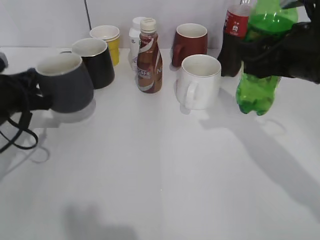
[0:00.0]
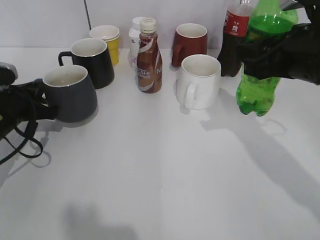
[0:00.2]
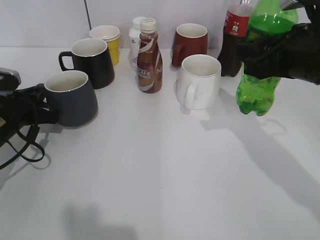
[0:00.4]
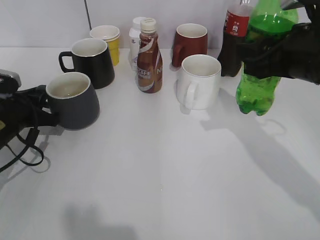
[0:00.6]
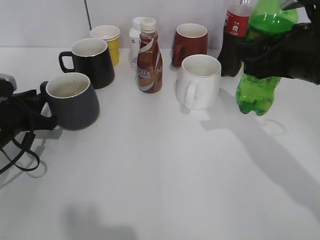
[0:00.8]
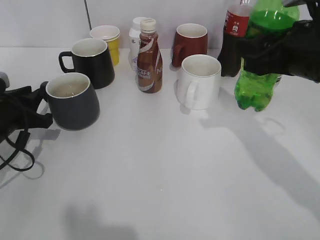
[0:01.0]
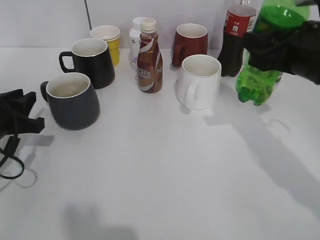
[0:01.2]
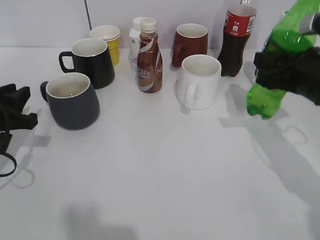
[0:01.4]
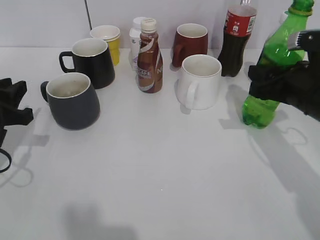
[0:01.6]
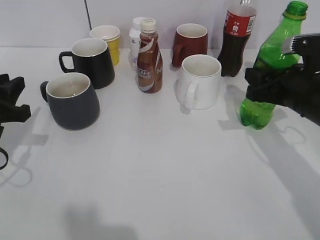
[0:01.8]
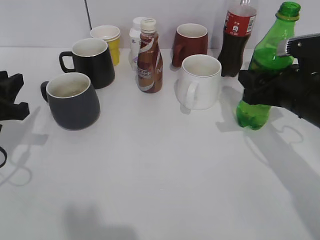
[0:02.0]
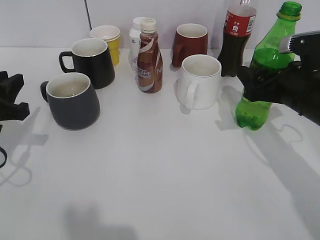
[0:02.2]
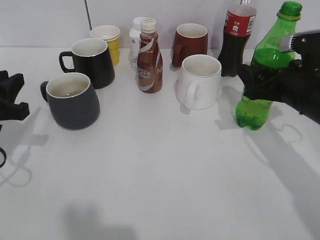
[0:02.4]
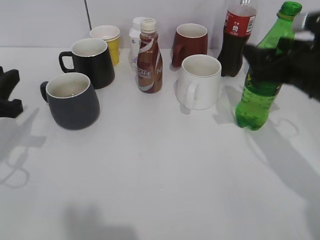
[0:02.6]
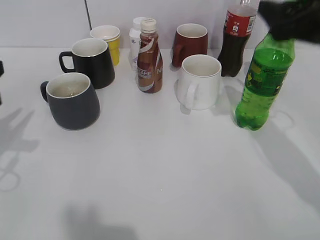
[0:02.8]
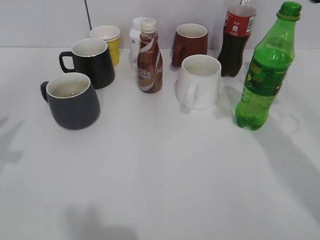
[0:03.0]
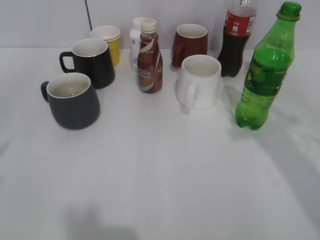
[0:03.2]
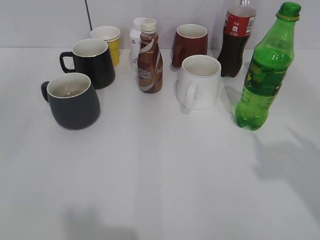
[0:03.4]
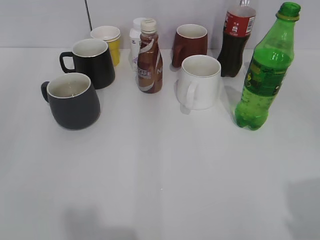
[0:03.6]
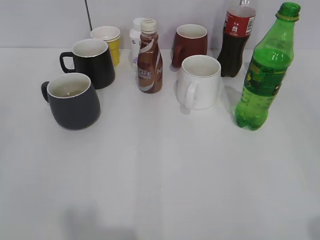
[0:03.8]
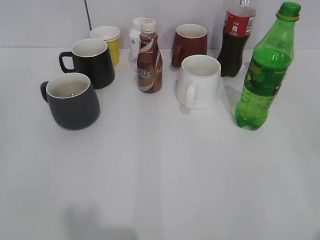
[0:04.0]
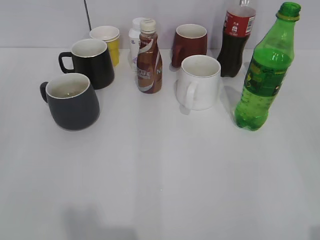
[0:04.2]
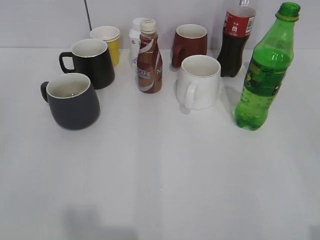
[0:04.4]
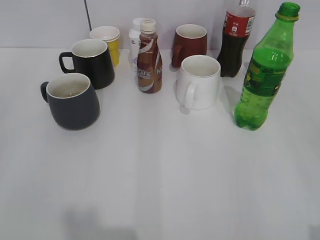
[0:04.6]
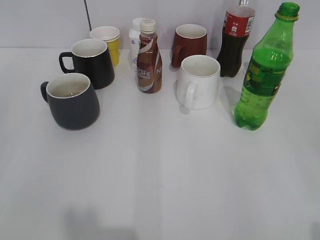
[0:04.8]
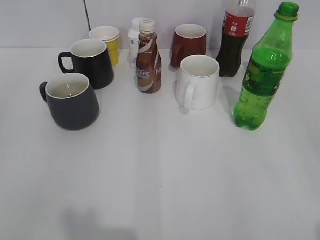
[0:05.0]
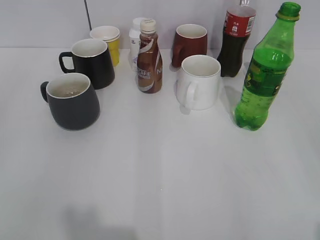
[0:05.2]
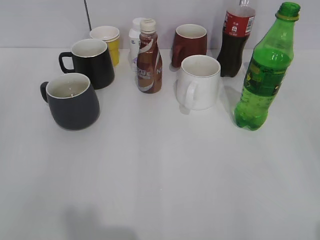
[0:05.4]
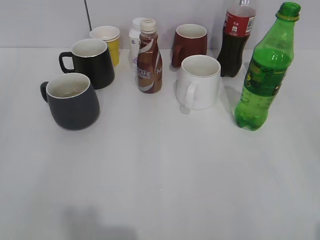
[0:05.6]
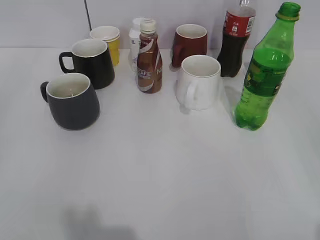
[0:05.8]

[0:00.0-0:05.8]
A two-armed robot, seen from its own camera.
Step, 0:01.0 to 0:02.4: Place the sprite bottle on the table with right gripper.
0:00.0 to 0:01.4: The right gripper changes place by some 5 cm, while the left gripper opens up.
0:01.4 to 0:02.8: The grippers both shift upward by roughly 5 cm. The right gripper opens.
0:02.8 to 0:04.4: The right gripper travels backward by approximately 25 cm.

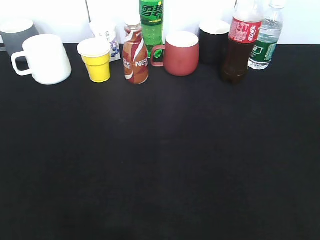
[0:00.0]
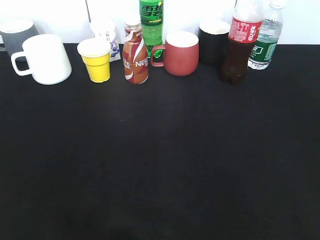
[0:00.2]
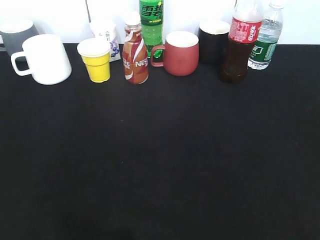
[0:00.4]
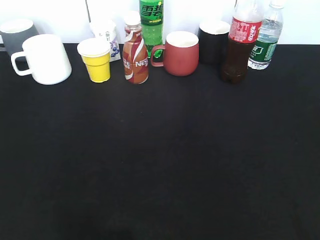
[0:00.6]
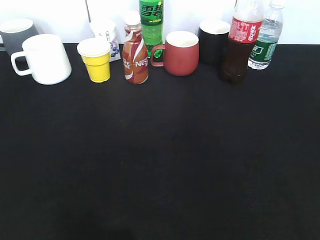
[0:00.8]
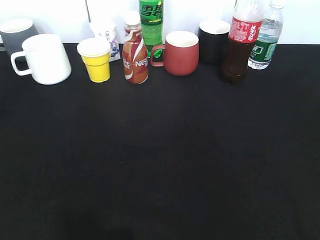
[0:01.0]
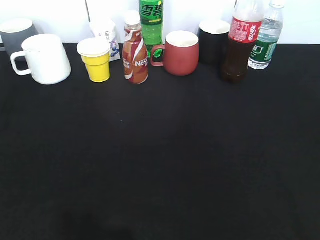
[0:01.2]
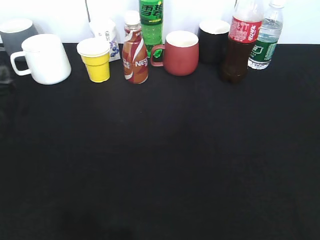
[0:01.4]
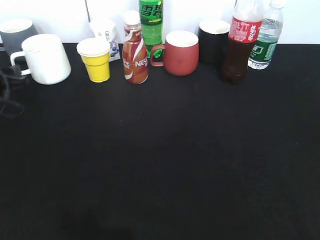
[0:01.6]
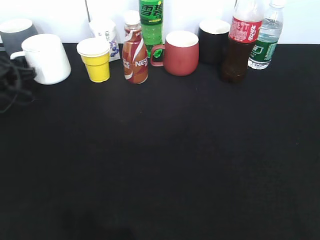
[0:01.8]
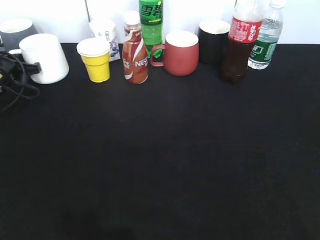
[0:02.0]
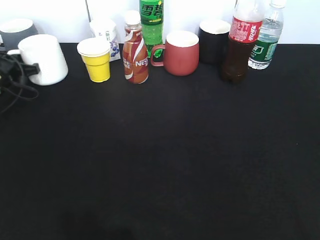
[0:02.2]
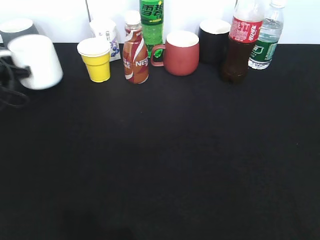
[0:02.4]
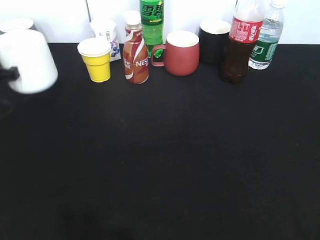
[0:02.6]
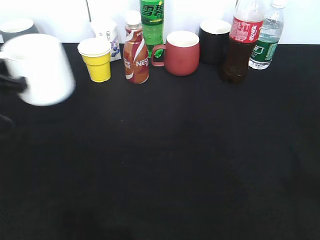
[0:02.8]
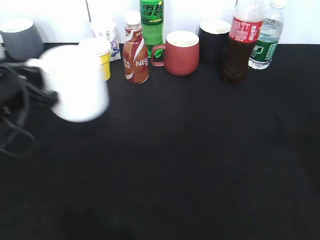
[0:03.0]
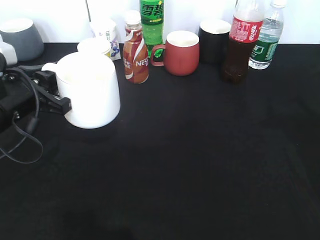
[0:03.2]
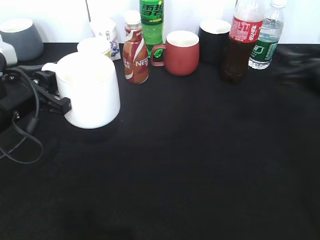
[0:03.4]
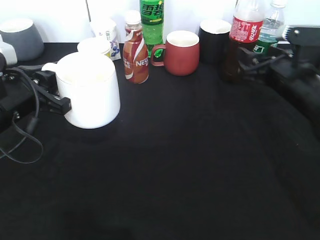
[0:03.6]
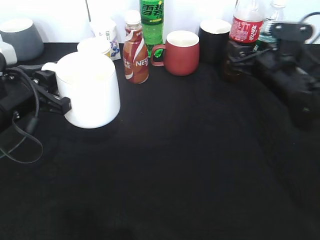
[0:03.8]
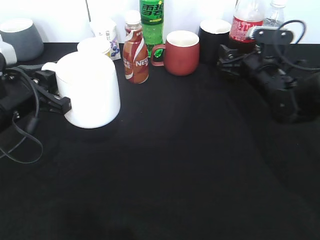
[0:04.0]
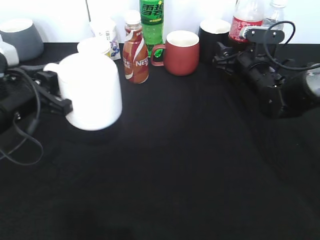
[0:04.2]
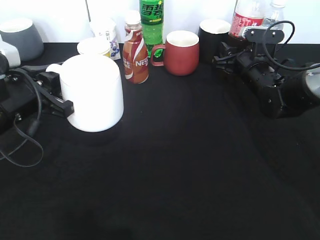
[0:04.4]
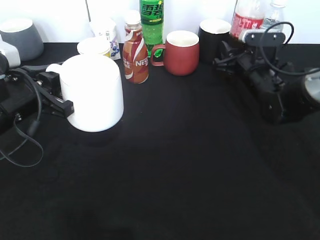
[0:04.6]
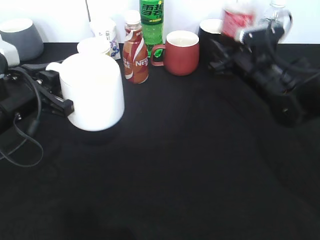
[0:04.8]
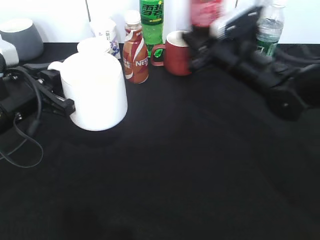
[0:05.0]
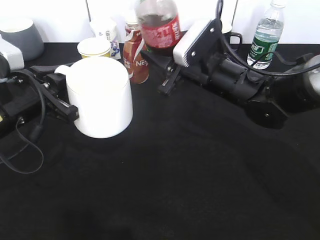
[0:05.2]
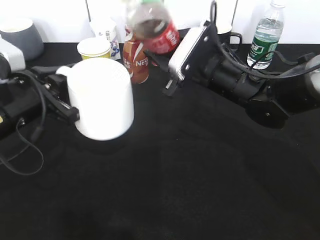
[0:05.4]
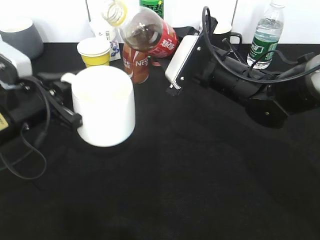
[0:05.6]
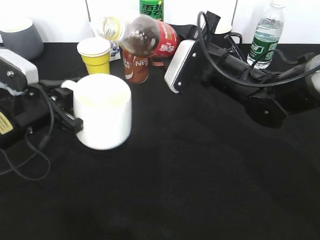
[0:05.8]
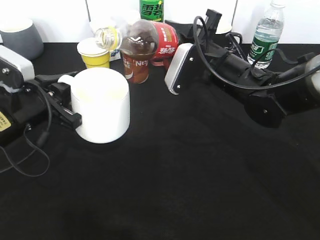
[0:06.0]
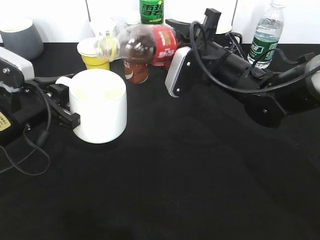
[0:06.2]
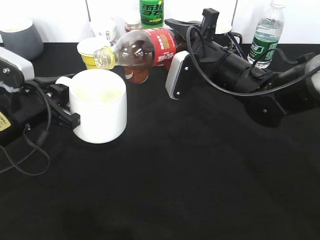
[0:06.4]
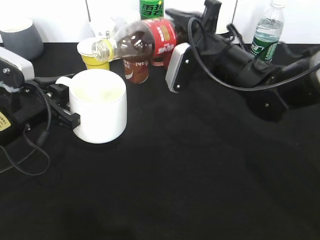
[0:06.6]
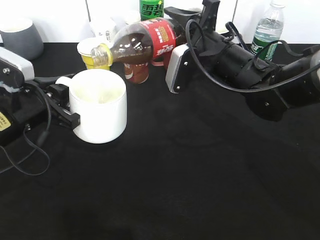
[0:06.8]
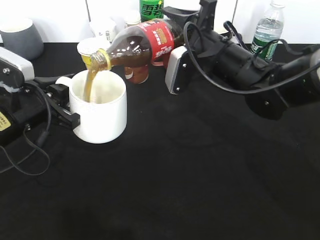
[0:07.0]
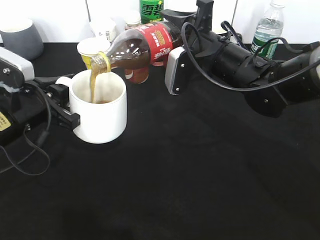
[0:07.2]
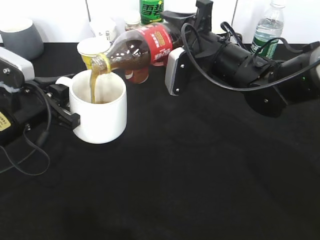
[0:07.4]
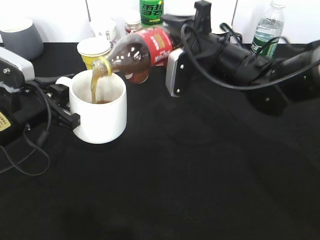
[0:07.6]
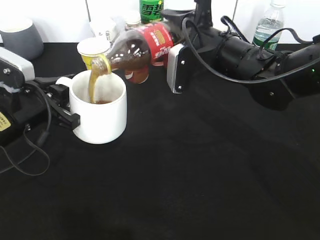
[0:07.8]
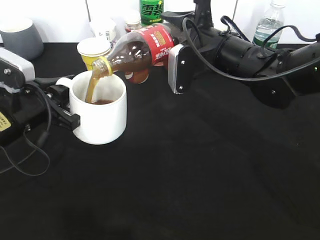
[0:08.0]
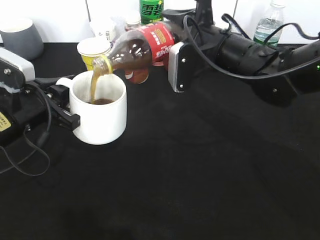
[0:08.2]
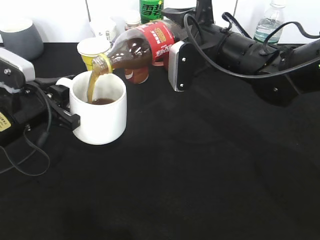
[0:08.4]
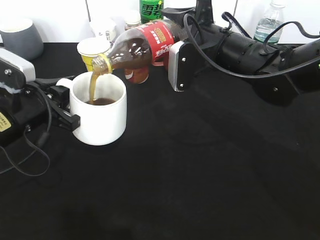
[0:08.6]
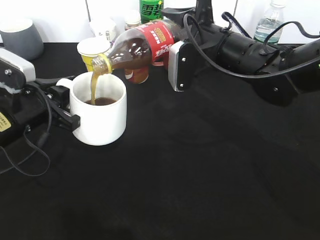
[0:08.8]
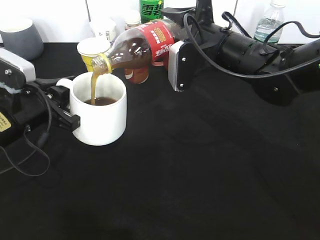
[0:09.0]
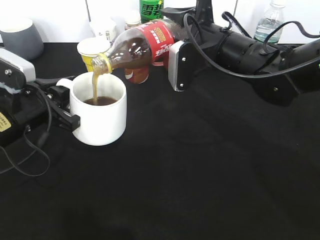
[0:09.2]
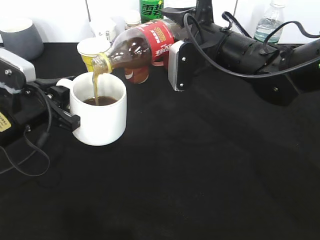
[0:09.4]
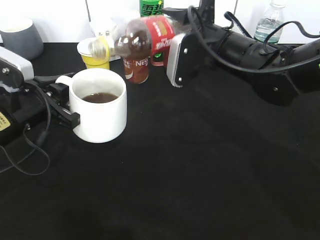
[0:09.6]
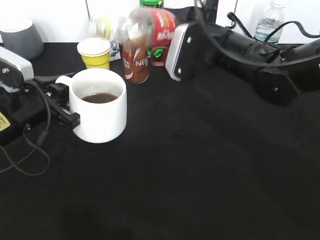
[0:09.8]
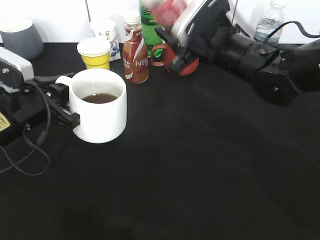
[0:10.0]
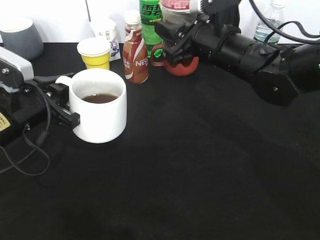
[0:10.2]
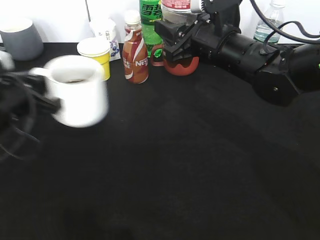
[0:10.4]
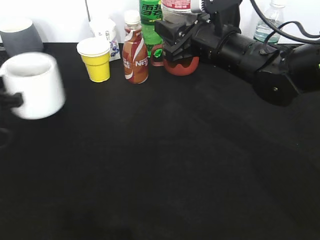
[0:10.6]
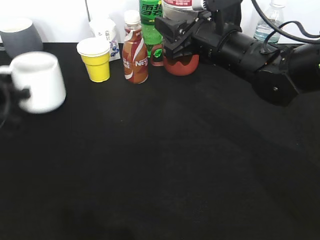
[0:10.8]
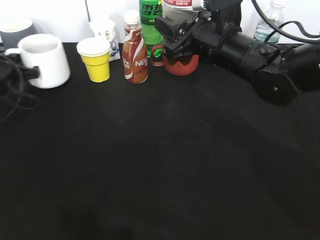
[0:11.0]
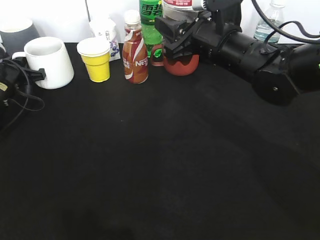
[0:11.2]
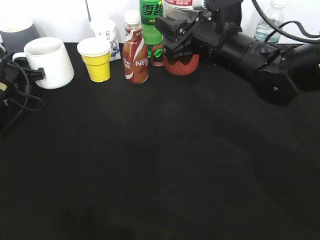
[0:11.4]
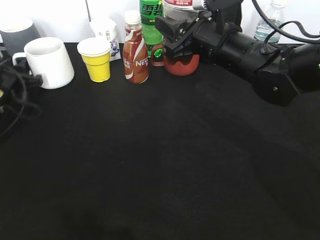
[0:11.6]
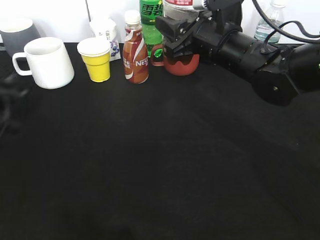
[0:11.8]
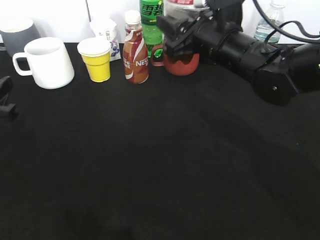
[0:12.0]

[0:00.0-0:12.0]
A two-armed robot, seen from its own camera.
Step, 0:00.0 to 0:02.0: Grasp the white cup with left gripper.
Step, 0:02.4 to 0:03.0: Lift the white cup with left gripper.
Step, 0:03.4 to 0:04.4: Grasp the bottle with cola with right gripper.
Step, 0:04.6 to 0:09.8: Pour the cola from bottle to cup with right gripper.
Step, 0:10.0 to 0:11.6: Place the white cup on the table with left gripper.
0:00.0 to 0:01.6: The left gripper moves forward and downward, approximately 40 cm.
0:01.6 to 0:03.0: The left gripper travels backward, to the right and upward by roughly 15 cm, and closes its fingers. Meanwhile the right gripper travels forward by some 20 cm.
0:03.0 to 0:04.4: The right gripper heads forward, downward and to the left, covering roughly 30 cm, and closes up.
0:04.4 to 0:06.0: The right gripper shifts some 15 cm to the left, backward and upward.
0:07.6 to 0:09.0: There are only small adjustments of the grippers.
0:10.4 to 0:12.0: The left gripper moves to the left, approximately 5 cm, moves roughly 15 cm forward and comes back, and opens its fingers.

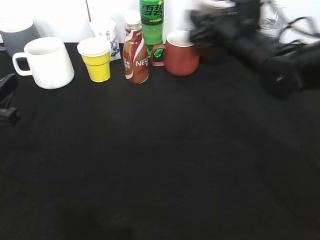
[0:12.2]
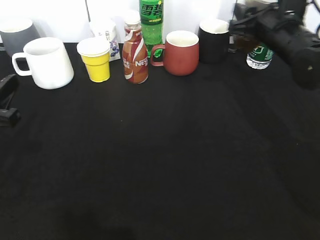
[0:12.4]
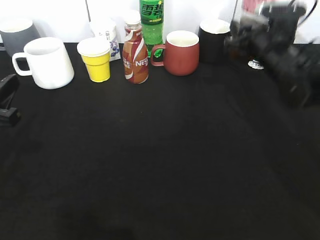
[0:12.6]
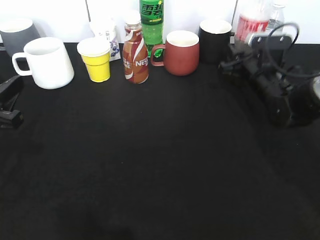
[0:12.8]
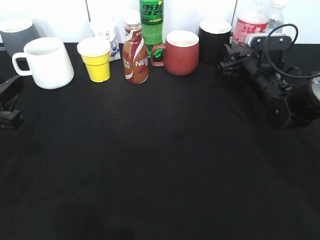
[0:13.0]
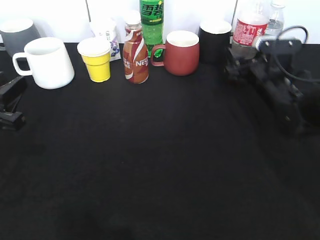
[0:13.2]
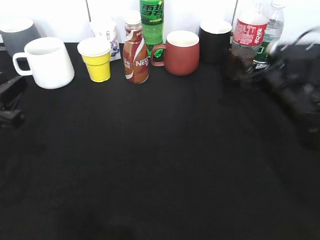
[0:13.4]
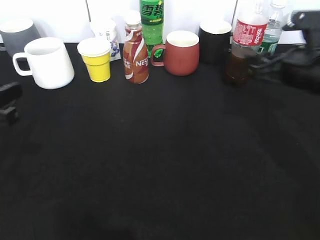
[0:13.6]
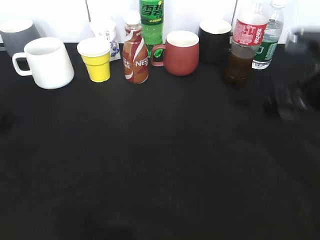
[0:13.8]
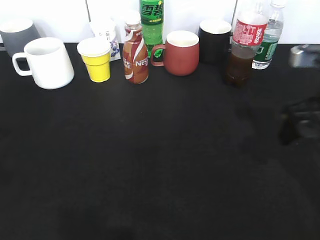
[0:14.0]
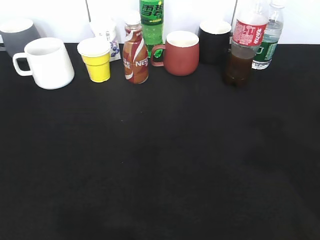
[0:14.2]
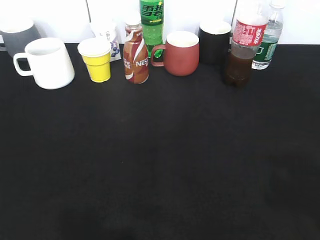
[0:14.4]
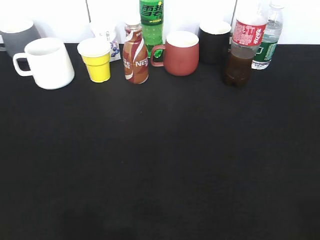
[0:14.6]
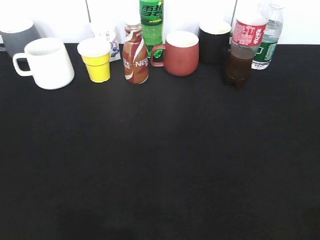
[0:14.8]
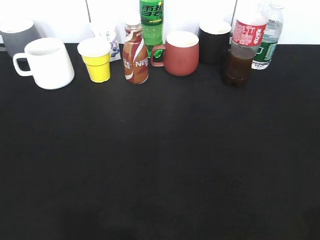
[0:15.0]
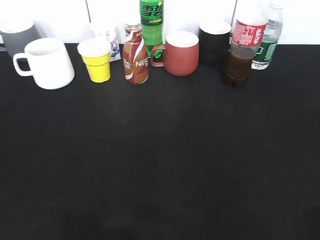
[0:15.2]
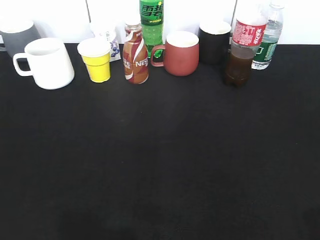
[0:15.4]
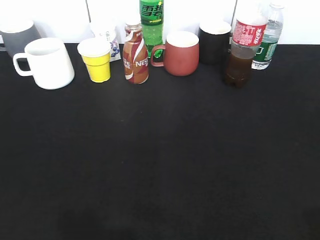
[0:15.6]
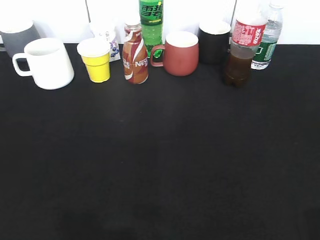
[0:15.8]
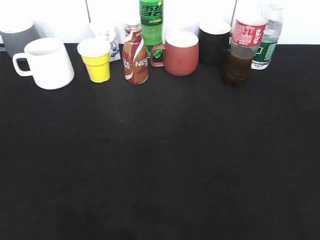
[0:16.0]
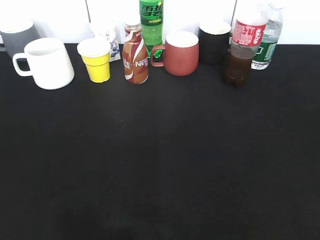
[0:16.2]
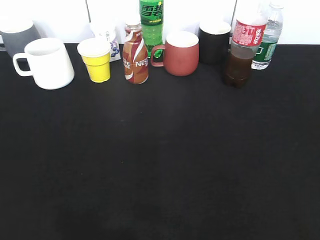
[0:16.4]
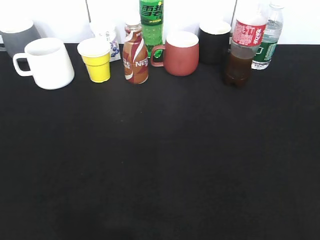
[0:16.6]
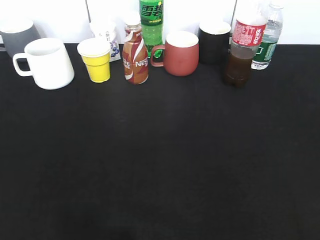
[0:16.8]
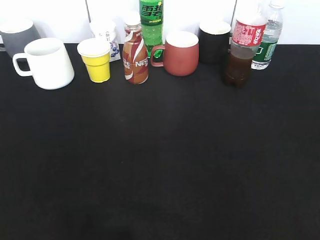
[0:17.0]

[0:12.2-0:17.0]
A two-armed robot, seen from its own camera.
Step, 0:12.2 to 0:13.6: Place the cola bottle on the table with right gripper.
0:12.2 to 0:13.8: The right gripper shifts about 15 cm backward and to the right, and opens.
0:13.8 to 0:15.4: The grippers both shift backward by some 25 cm. The left gripper opens.
